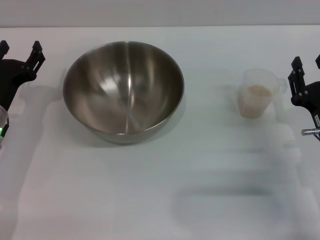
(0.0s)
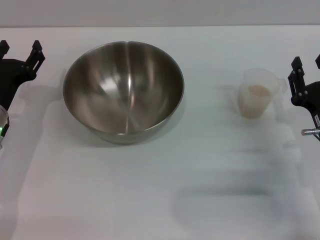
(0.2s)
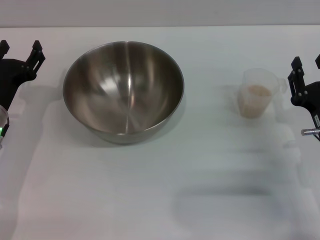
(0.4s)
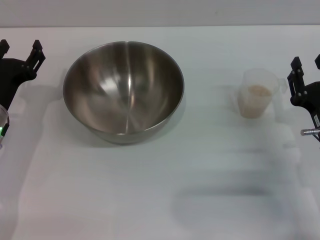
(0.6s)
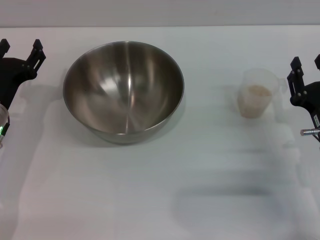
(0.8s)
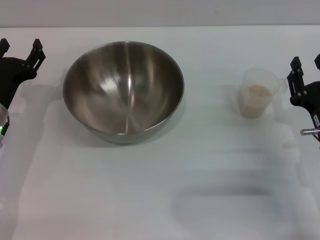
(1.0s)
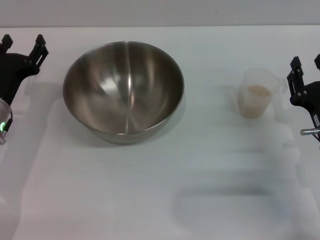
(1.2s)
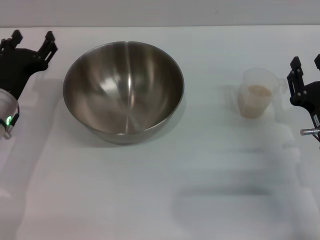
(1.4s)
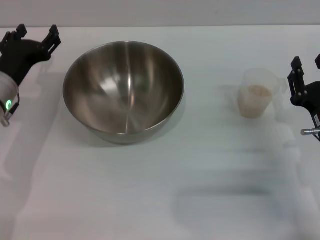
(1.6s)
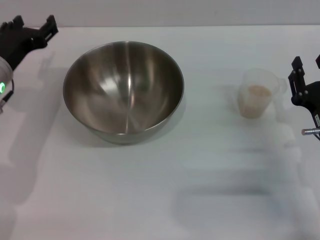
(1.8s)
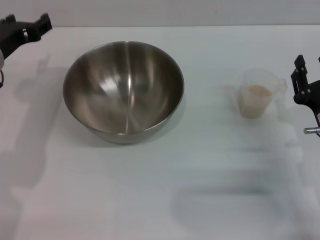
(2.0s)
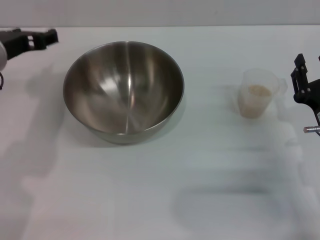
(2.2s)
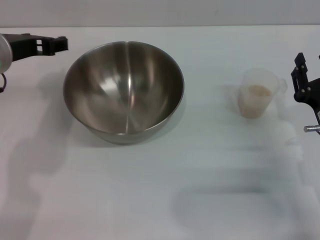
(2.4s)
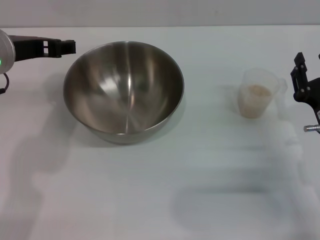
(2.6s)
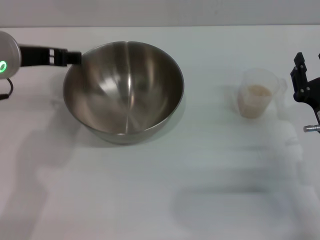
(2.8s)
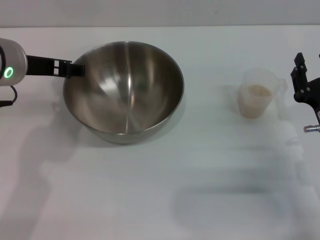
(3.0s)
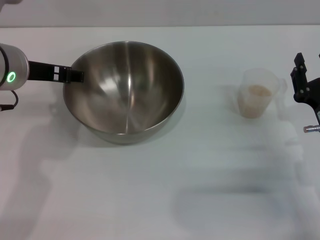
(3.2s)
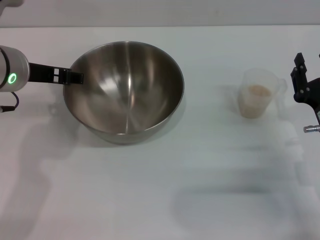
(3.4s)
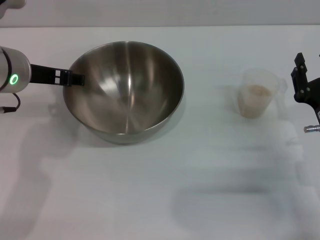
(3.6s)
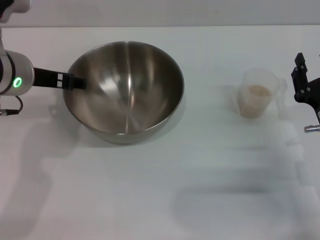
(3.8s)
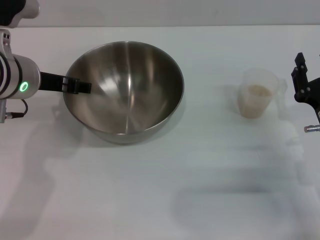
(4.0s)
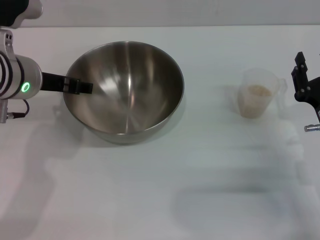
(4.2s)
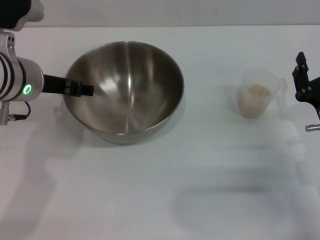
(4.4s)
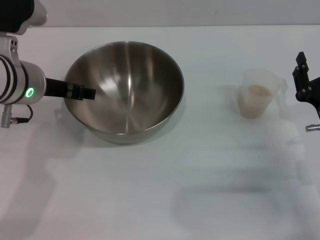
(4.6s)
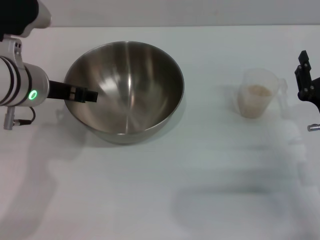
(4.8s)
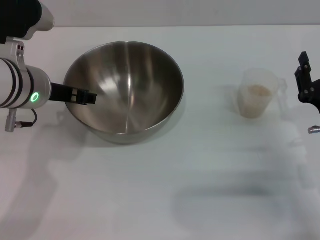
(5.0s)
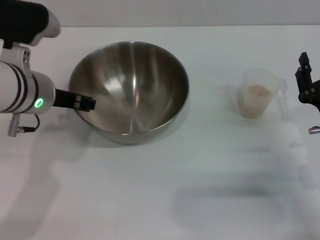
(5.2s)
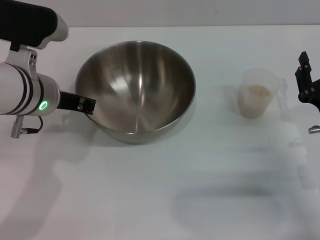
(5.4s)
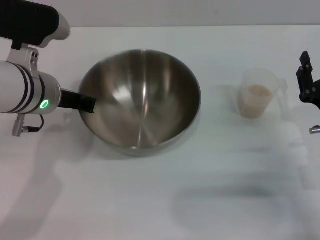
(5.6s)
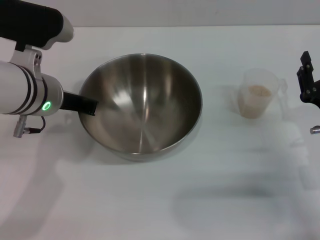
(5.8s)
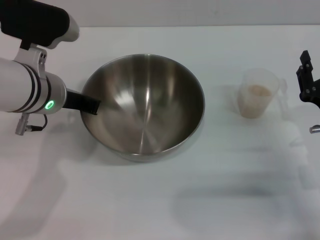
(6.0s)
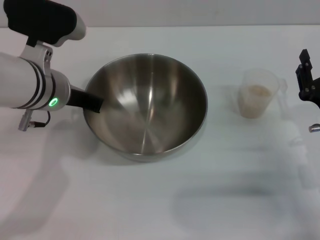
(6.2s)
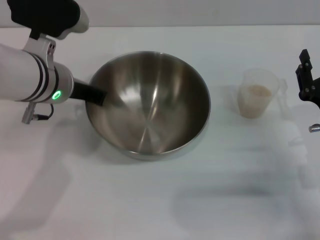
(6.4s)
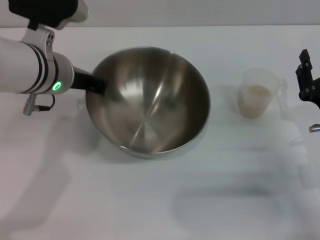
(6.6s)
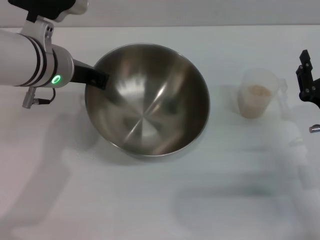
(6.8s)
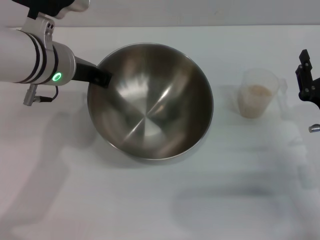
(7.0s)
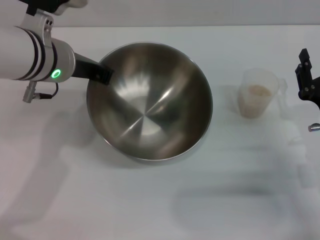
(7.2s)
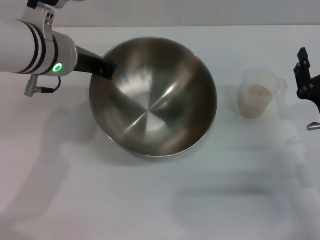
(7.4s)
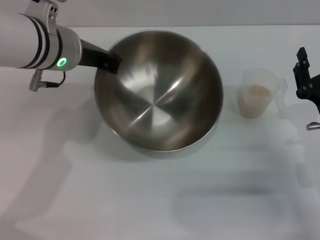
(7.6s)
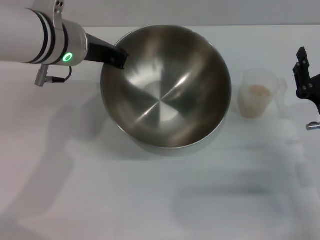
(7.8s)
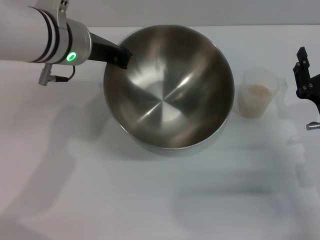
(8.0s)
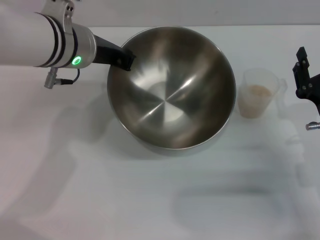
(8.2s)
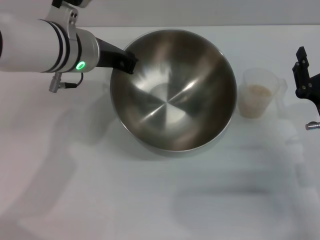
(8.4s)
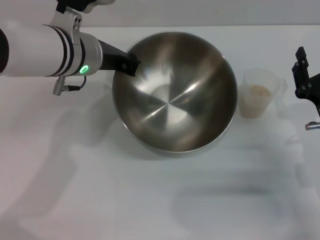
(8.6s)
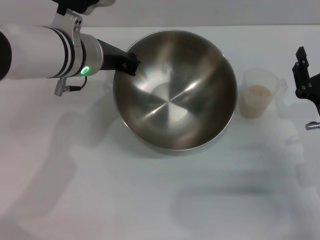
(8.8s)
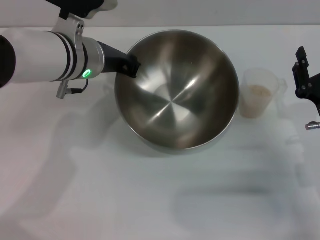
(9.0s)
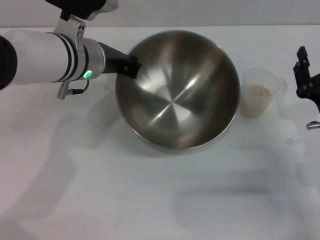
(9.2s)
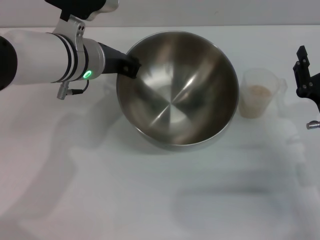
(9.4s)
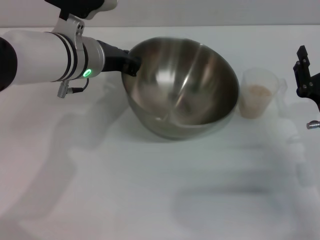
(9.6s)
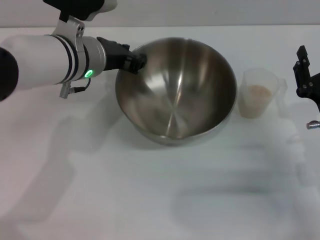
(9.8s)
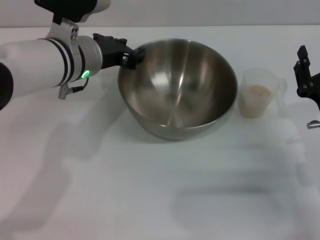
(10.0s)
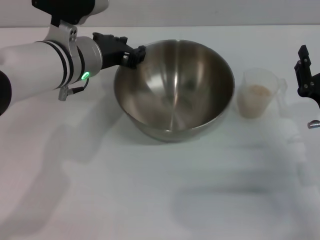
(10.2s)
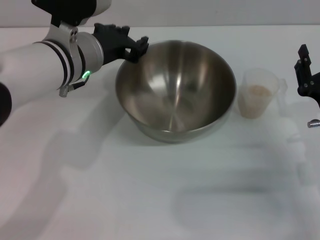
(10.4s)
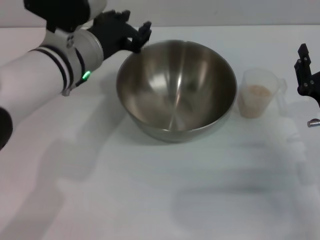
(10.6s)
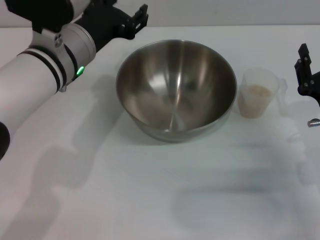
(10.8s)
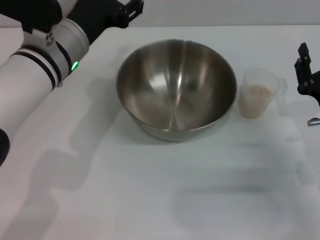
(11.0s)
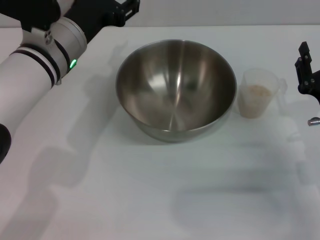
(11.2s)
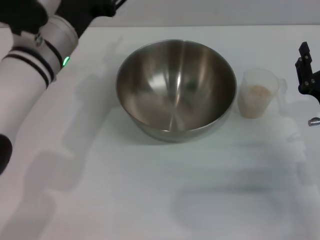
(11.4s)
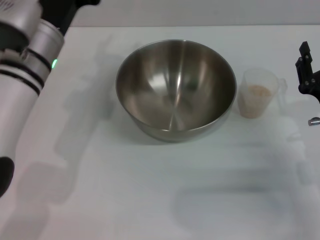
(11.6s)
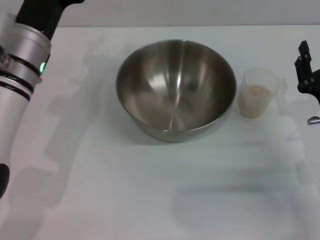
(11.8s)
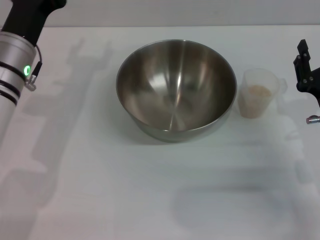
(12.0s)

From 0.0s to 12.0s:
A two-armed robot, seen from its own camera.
Task of the whole recording: Place the bowl in the middle of the table with one hand and pour the rice from the grain cup into it with the other hand.
Step, from 0.0s to 7.2s: Pick up the bowl with the left gripper.
Step, from 7.6s to 10.4s: Place the bowl in the center of view with the left gripper.
From 0.0s to 1.6s: The grippers stay close to where they were, moving slightly.
From 1.6s to 3.0s: The left gripper travels upward and to the right by roughly 15 cm.
From 3.0s to 4.4s: The grippers make only small movements.
From 4.4s to 6.0s: The left gripper closes its fingers.
From 6.0s to 7.6s: The left gripper ends up about 5 cm from where it was.
From 9.0s to 10.4s: The left gripper opens up.
From 10.4s to 12.0s: The left gripper is displaced to the left by approximately 10 cm, and opens up.

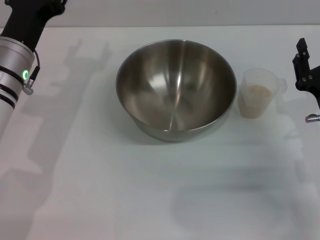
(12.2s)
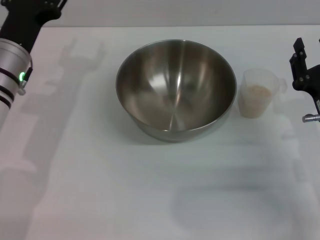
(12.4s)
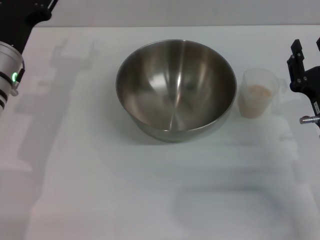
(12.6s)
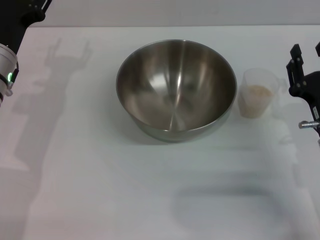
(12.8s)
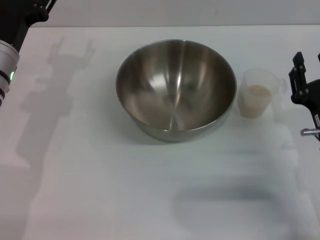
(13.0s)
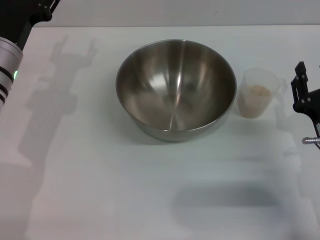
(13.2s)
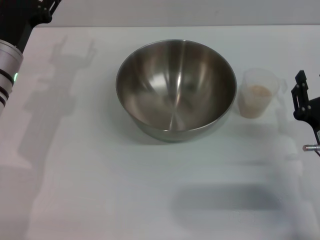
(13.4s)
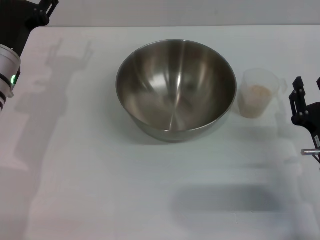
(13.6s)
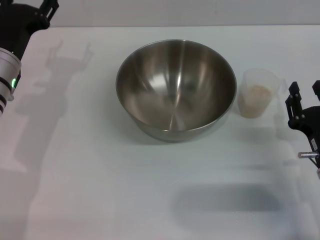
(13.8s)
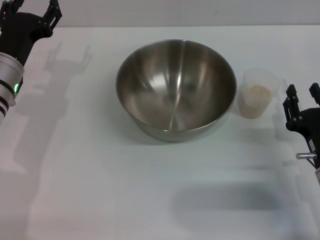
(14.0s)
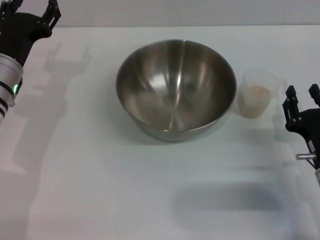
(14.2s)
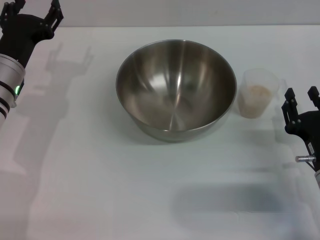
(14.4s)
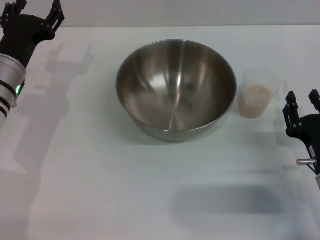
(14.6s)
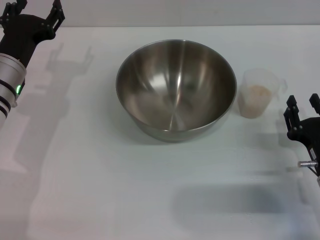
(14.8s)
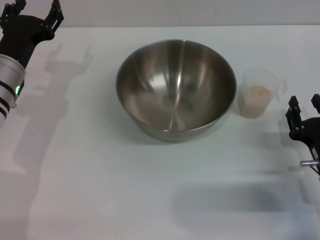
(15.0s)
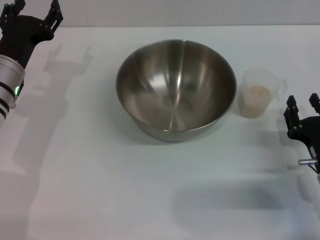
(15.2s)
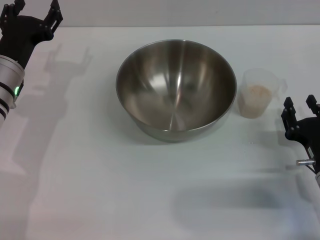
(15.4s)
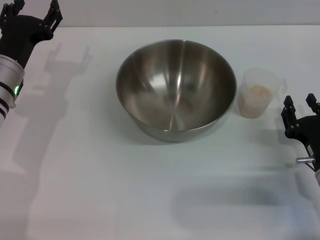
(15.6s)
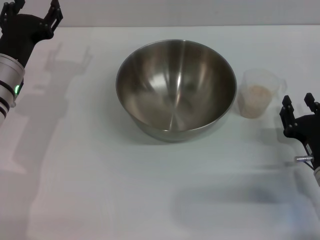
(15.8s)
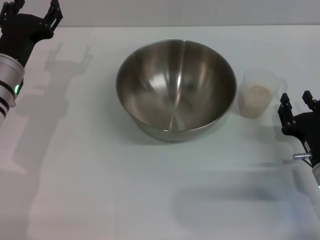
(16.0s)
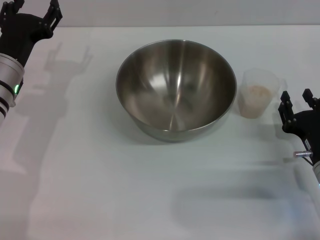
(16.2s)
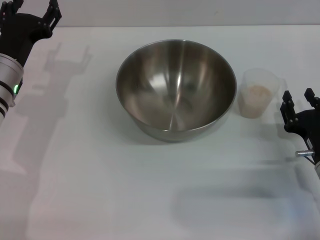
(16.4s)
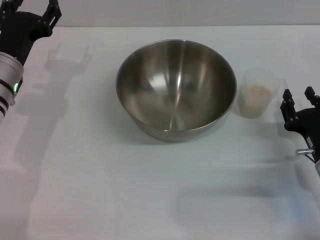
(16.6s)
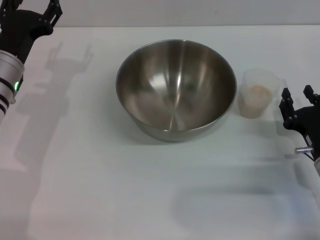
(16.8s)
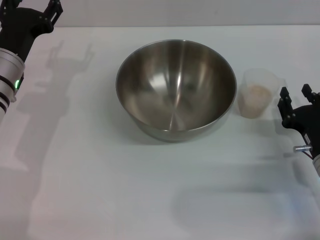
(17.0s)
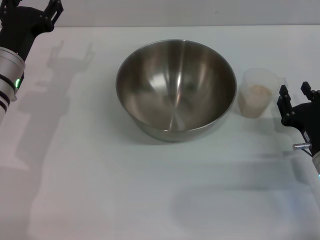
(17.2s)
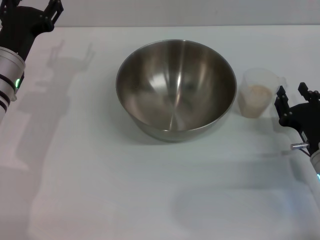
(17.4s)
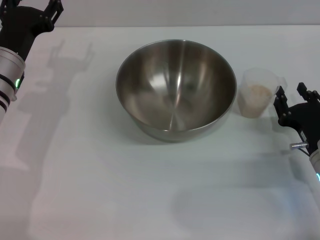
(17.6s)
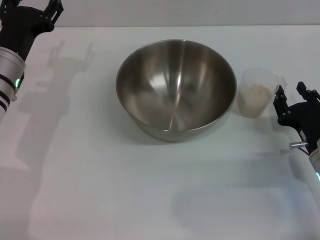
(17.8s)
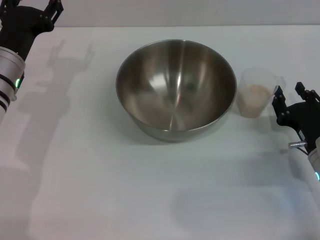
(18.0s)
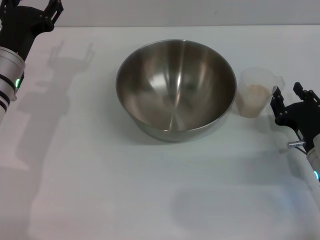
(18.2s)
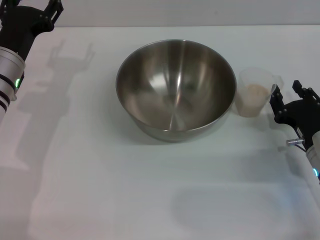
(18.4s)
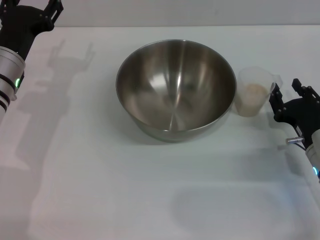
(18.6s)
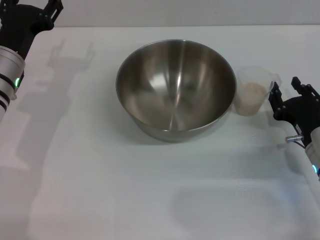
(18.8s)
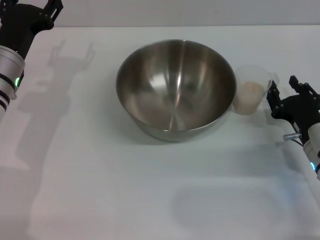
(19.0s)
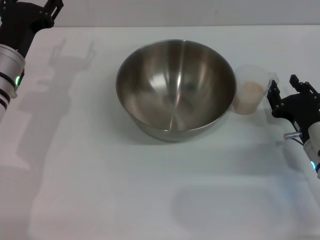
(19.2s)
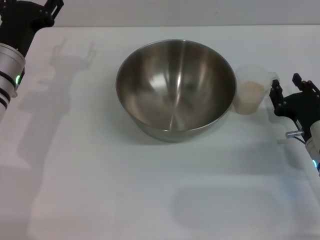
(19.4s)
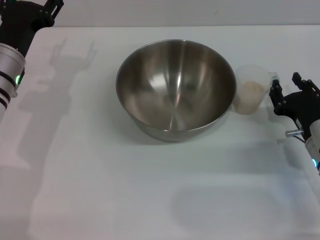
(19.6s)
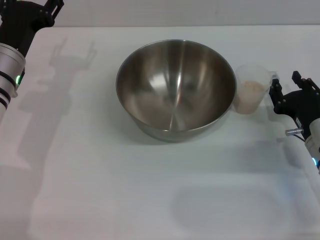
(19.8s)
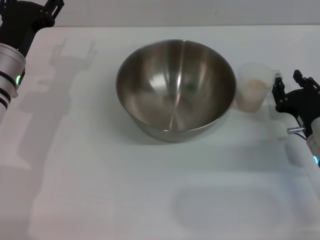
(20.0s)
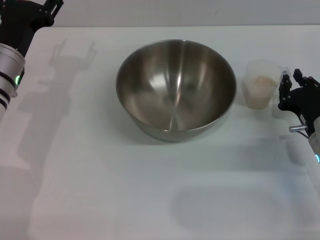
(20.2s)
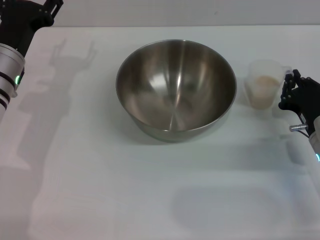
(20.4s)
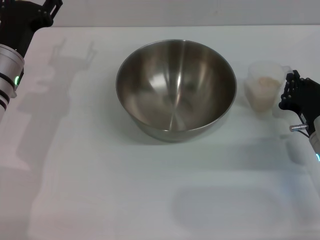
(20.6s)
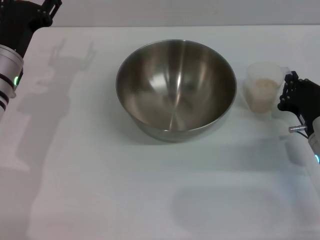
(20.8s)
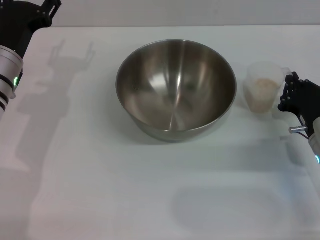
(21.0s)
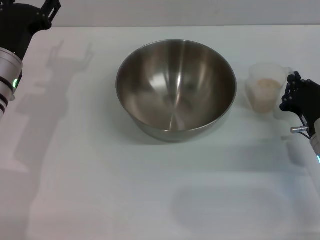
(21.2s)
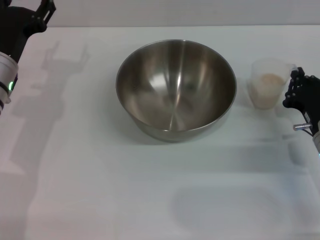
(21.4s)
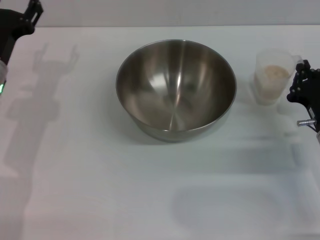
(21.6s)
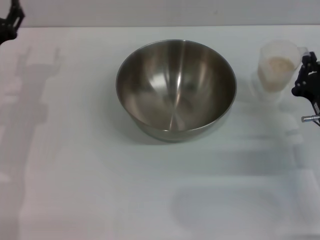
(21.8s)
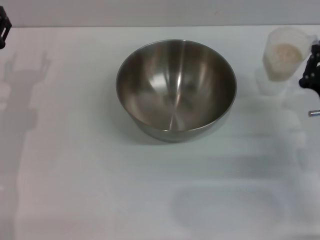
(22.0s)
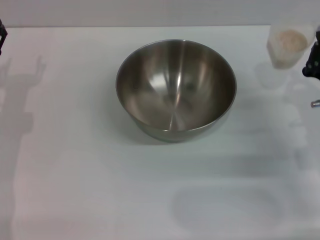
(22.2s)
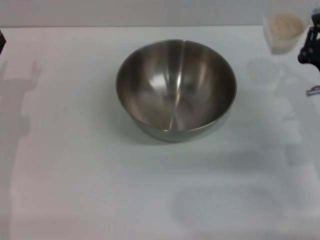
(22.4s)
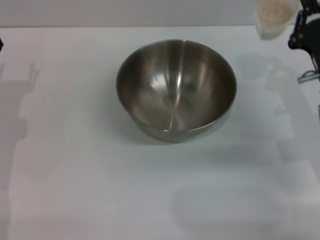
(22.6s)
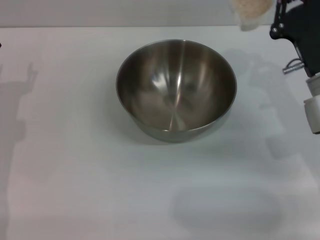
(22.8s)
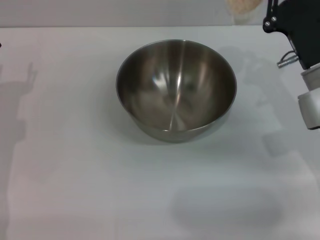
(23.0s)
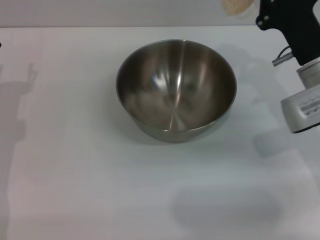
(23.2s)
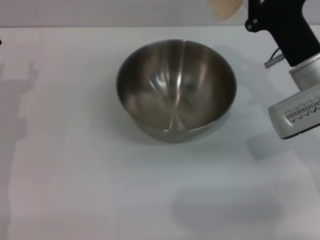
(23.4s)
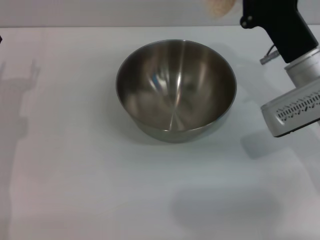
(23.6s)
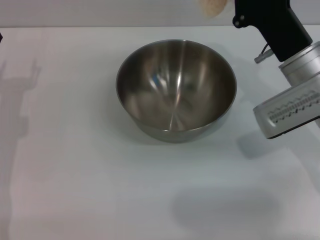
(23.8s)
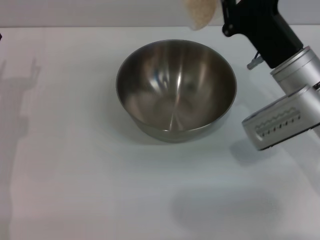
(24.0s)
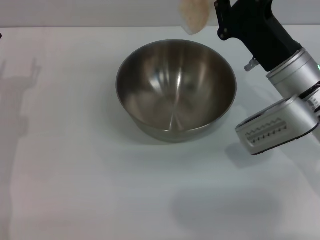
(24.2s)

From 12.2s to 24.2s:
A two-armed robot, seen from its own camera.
Task of the whole recording: Place the bowl in the middle of the table with one hand and pour the rice from the grain cup into it with the other hand.
Step, from 12.2s to 21.6s: Pick up the cup with rice in it with the right gripper.
From 12.2s to 13.8s: The right gripper changes place by approximately 5 cm.
From 13.8s to 18.2s: The grippers move only a little.
From 18.2s to 19.8s: The grippers make only small movements.
From 19.8s to 21.2s: The right gripper closes up.
From 21.2s to 22.6s: The right gripper heads upward, covering some 5 cm; the left gripper travels to the left by some 5 cm.
From 22.6s to 24.2s: The right gripper travels to the left by some 5 cm.
